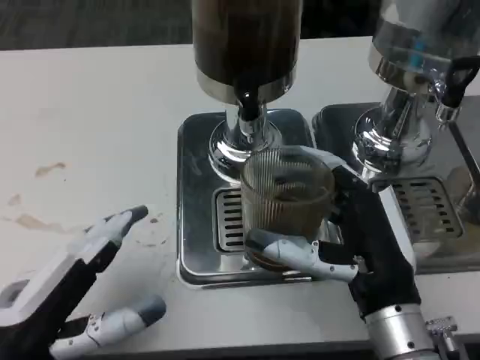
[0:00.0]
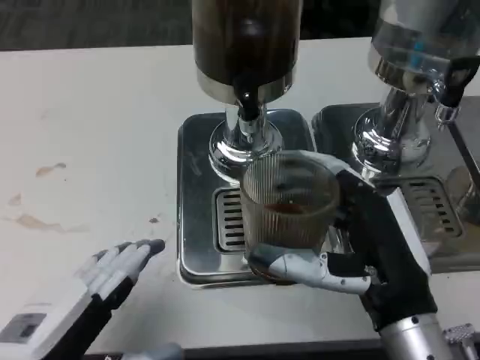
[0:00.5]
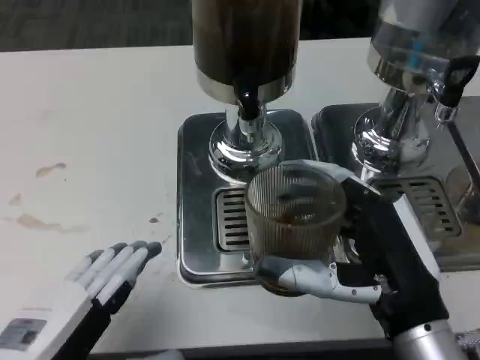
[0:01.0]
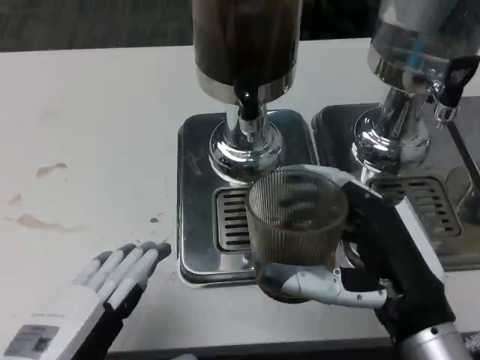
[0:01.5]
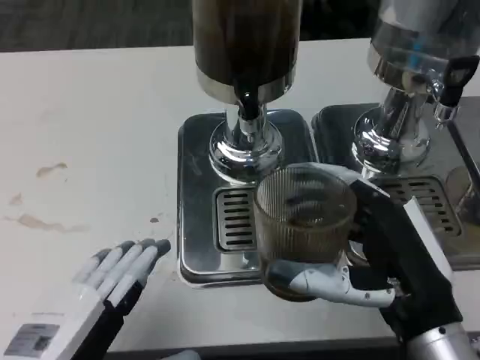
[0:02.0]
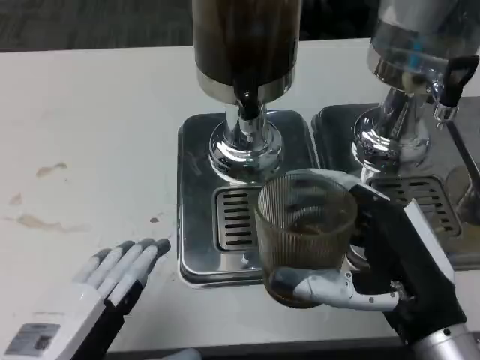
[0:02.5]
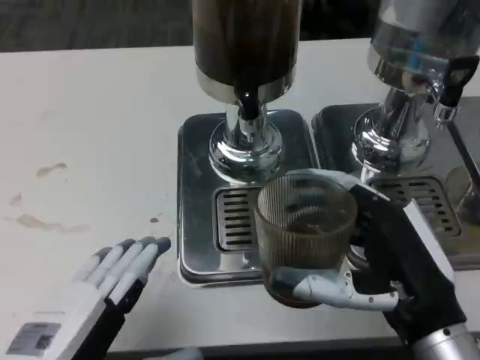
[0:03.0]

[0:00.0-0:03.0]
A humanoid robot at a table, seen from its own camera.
Task of the whole recording: Grasp the cup under the faucet to collect the drink, then remove the cup.
0:01.5 to 0:03.0: Both hands stay about where they are.

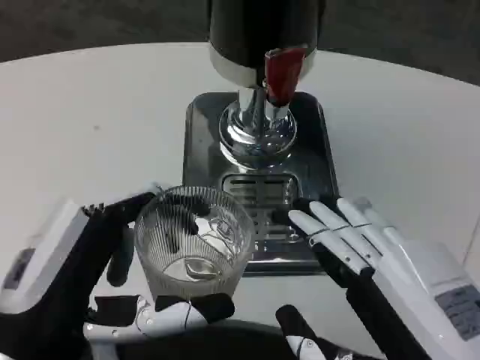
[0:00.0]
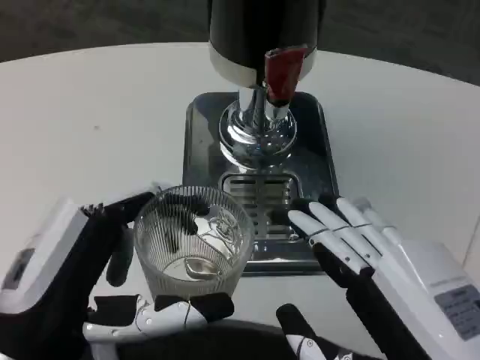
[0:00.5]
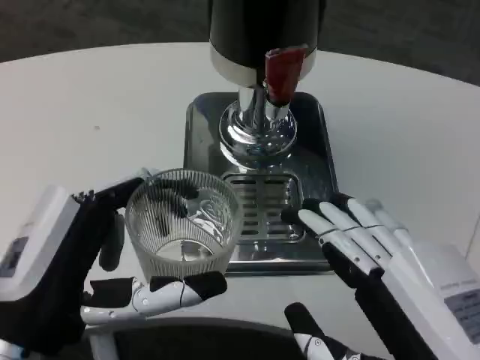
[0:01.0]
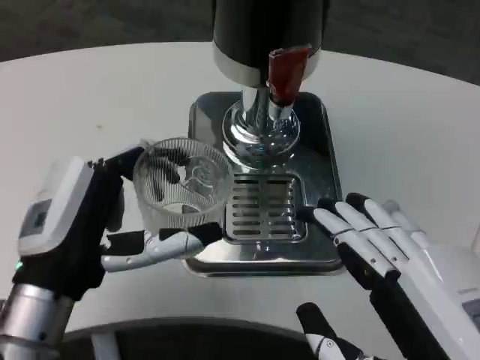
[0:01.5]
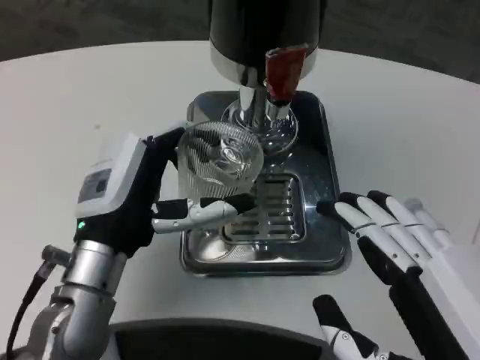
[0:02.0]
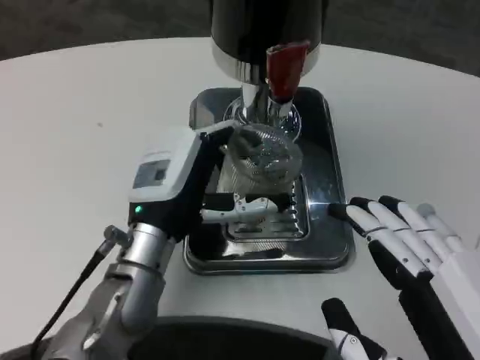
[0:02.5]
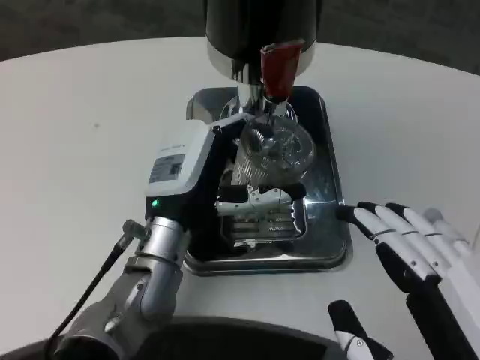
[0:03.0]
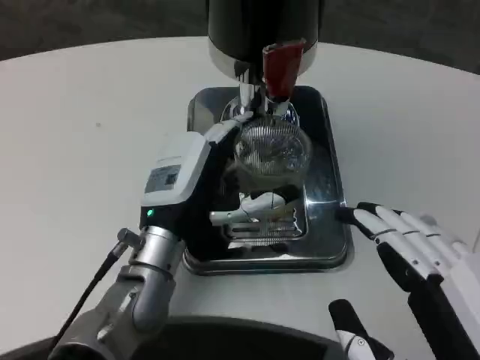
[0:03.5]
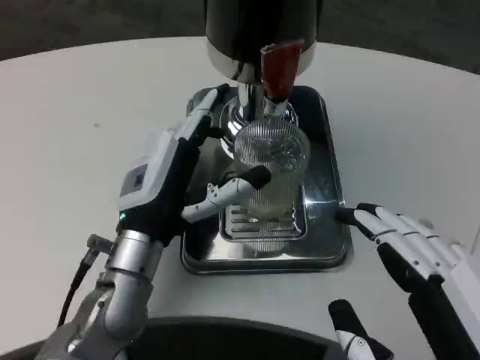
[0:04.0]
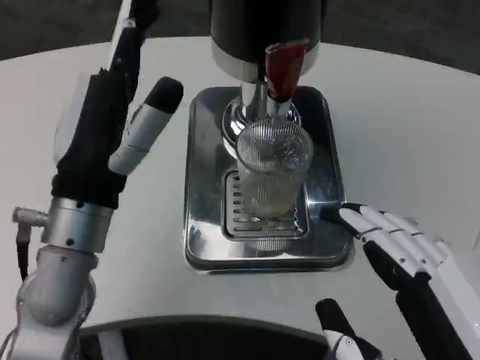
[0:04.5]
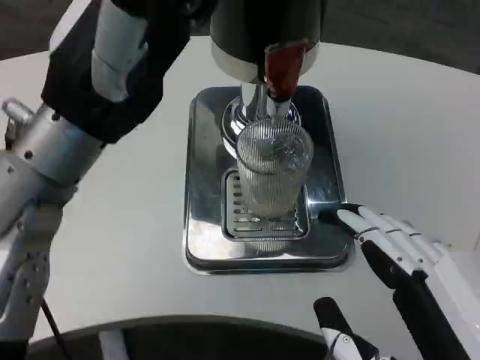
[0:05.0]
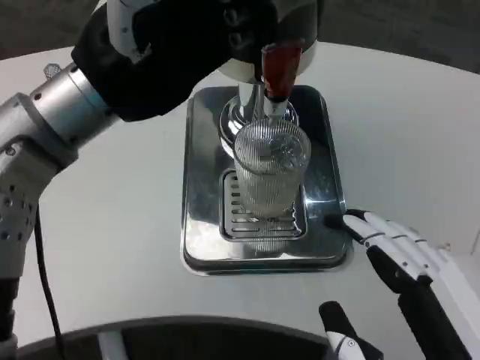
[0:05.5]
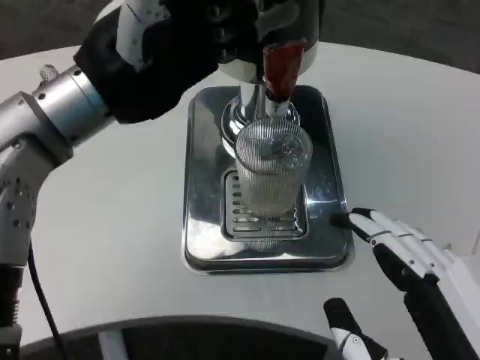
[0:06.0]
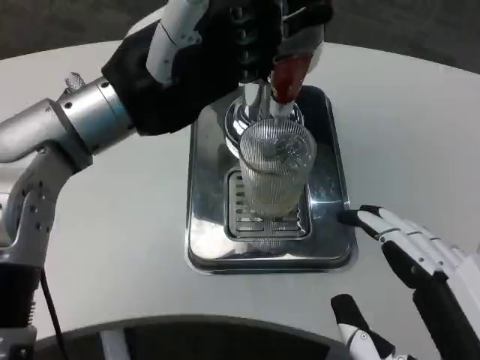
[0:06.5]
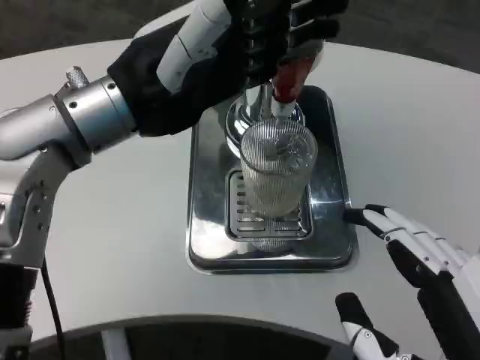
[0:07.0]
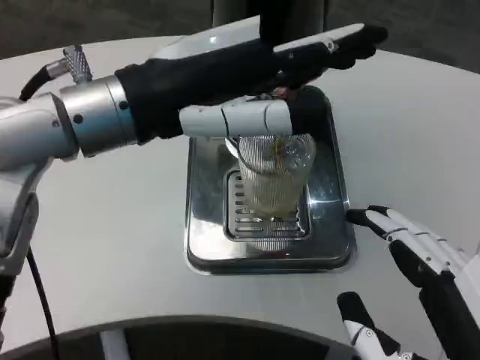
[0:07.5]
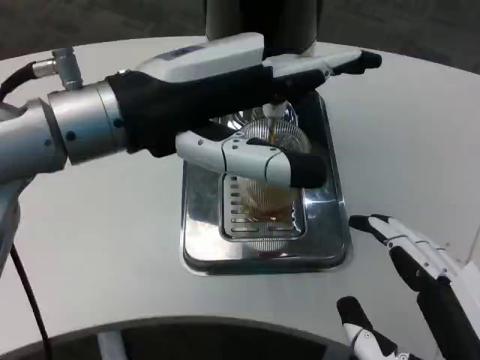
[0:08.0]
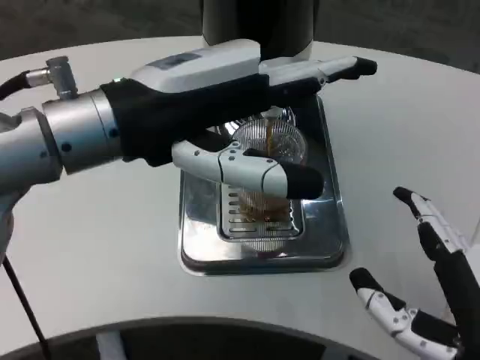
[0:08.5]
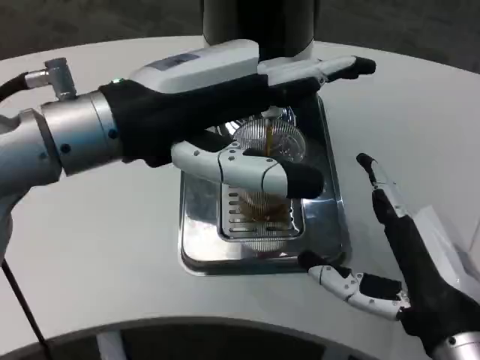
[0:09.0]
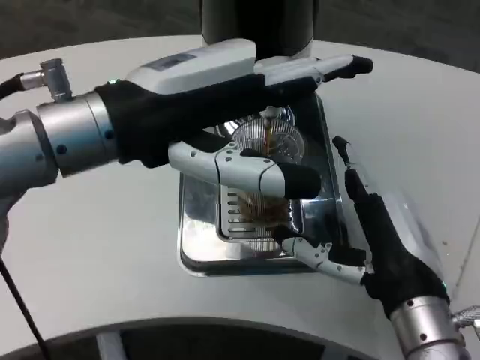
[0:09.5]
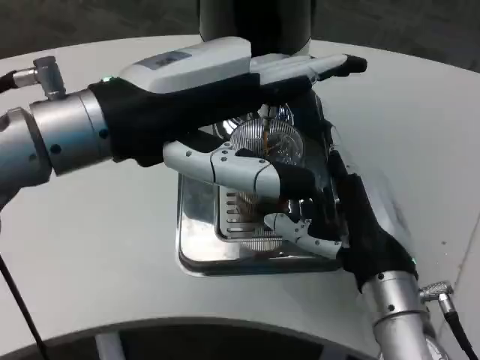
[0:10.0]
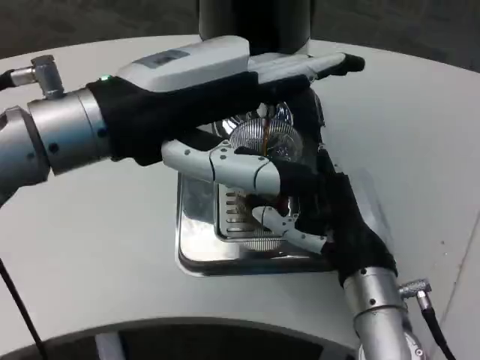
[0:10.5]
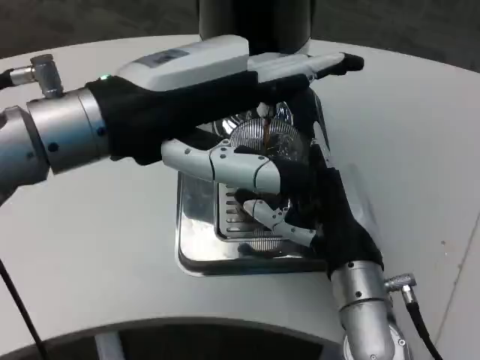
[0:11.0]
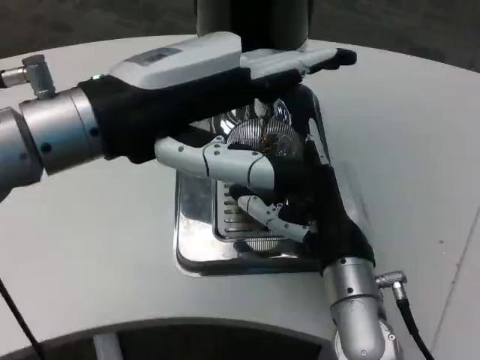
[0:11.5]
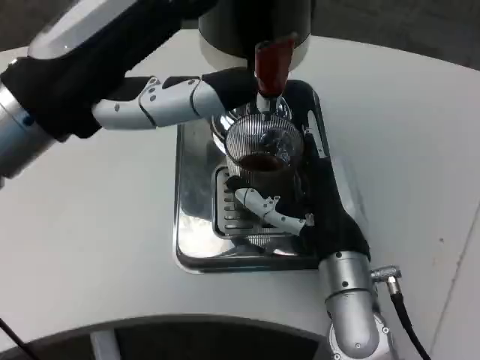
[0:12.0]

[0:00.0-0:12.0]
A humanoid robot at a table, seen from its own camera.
Task of the whole recording: Grasp the cup under the faucet to collect the drink, then remove the cup.
0:00.0 to 0:02.0: The left hand is displaced forward by some 15 cm.
0:04.0 to 0:06.0: The left hand is displaced upward by approximately 20 cm.
0:08.0 to 0:10.0: The right hand travels forward by approximately 15 cm.
0:10.0 to 0:12.0: The right hand moves approximately 5 cm.

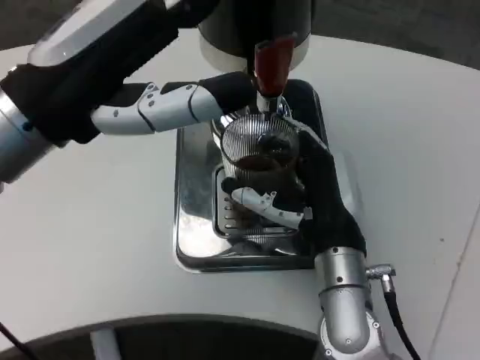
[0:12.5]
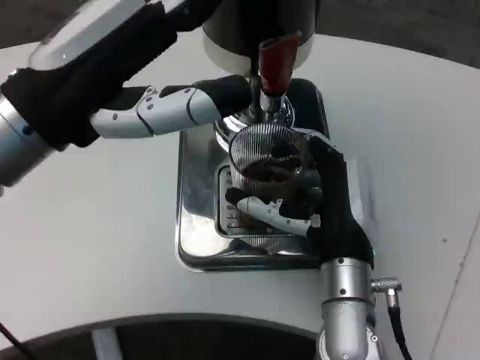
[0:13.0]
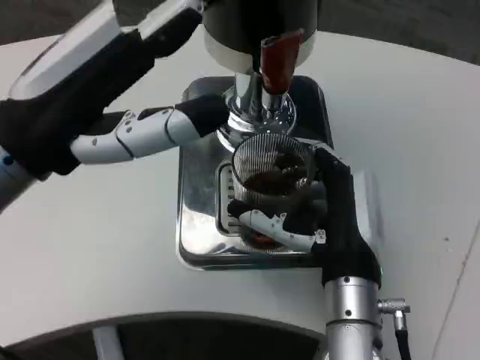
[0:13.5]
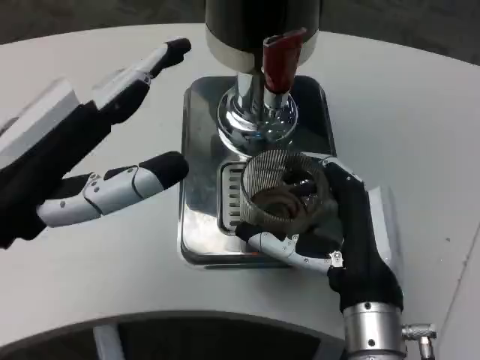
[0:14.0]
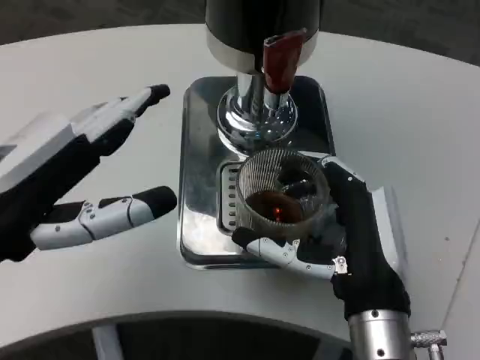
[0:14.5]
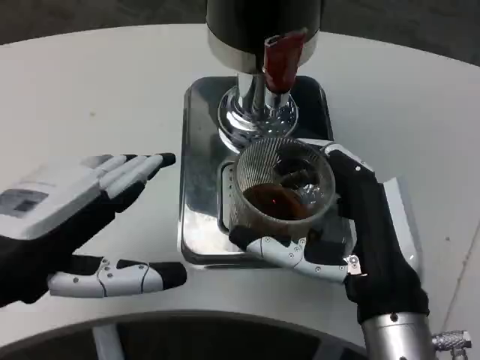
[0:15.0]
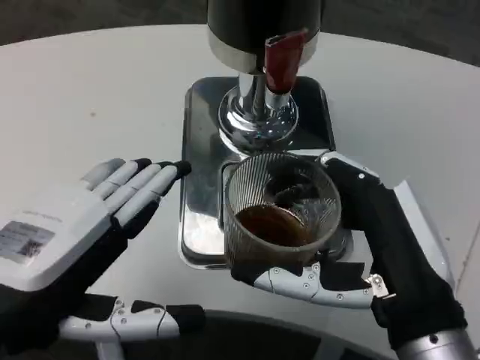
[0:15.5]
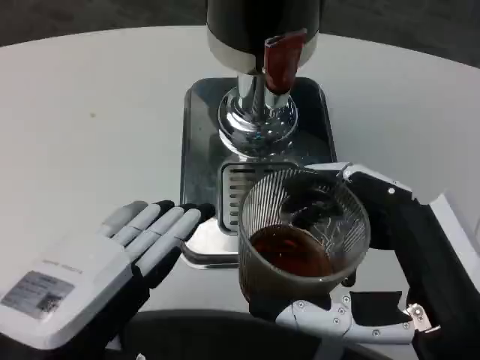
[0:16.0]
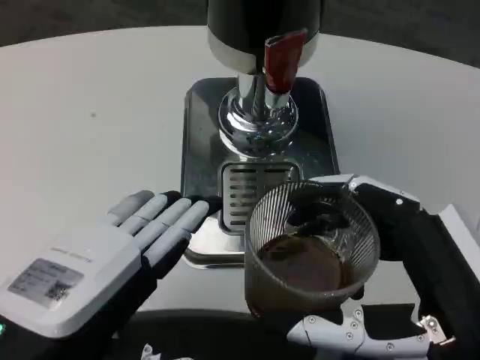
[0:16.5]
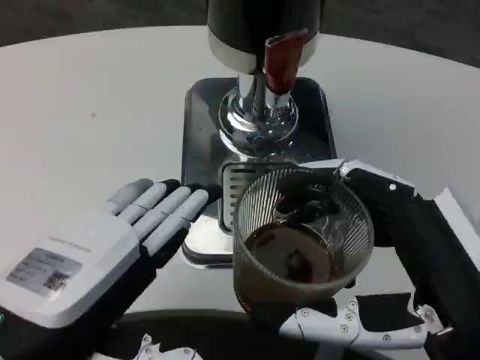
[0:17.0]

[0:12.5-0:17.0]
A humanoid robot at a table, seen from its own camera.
Task of the whole recording: Grasp the cup under the faucet to collect the drink, then remove the cup.
0:12.5 to 0:14.5: The right hand heads backward, covering some 5 cm. The left hand travels downward and backward by about 10 cm.
0:14.5 to 0:17.0: The right hand heads backward, upward and to the right, covering about 15 cm. The left hand travels backward by some 5 cm.

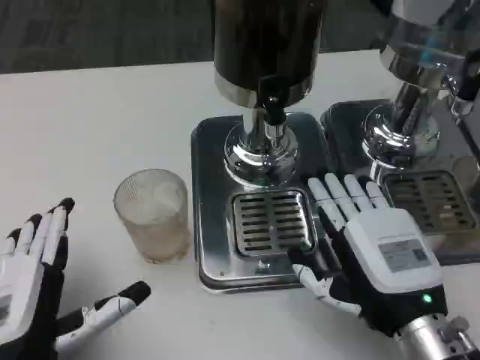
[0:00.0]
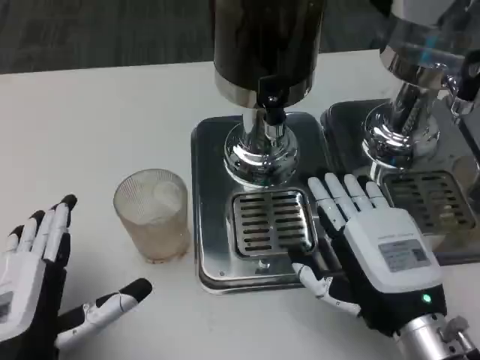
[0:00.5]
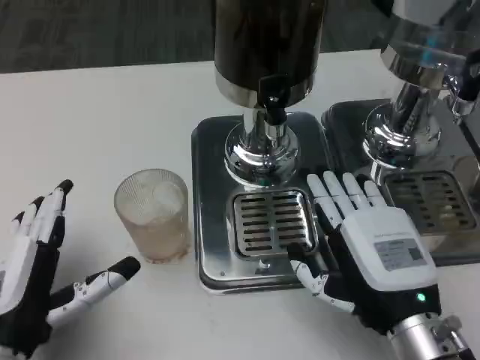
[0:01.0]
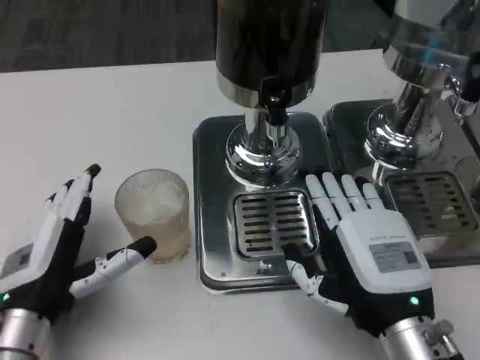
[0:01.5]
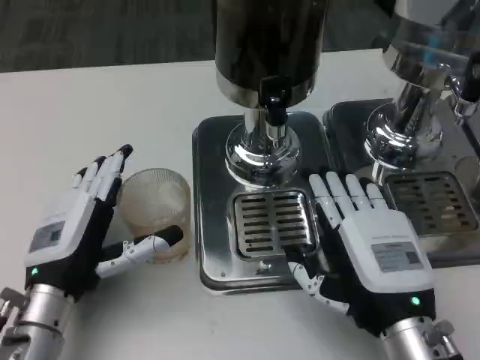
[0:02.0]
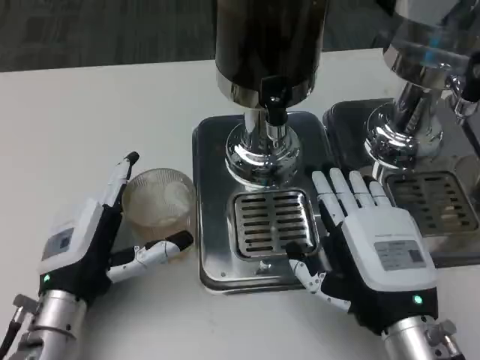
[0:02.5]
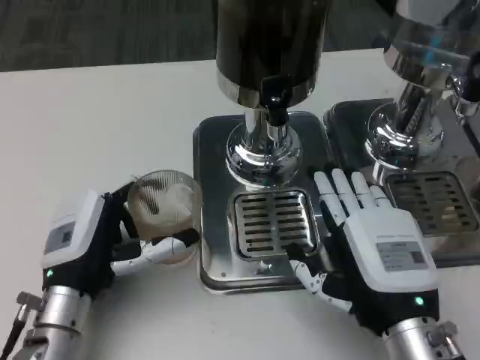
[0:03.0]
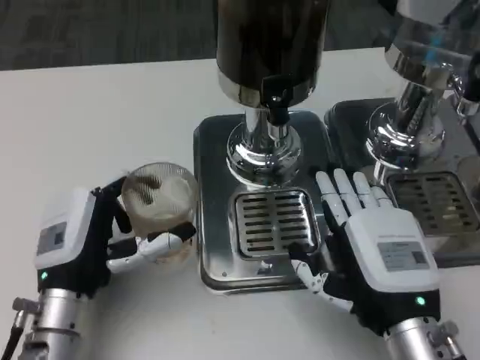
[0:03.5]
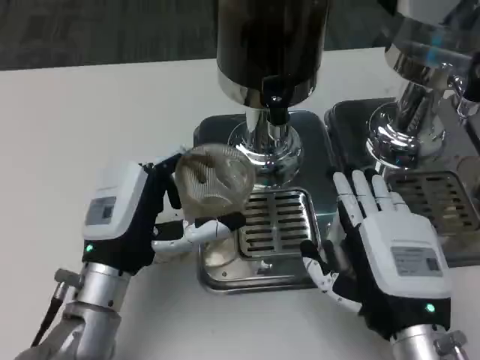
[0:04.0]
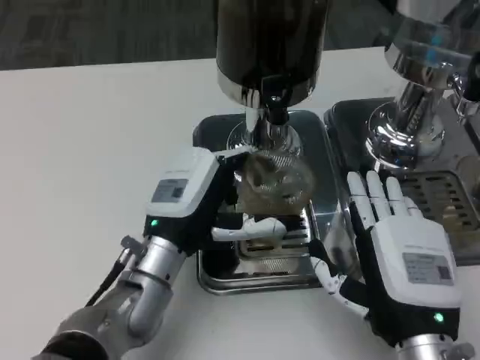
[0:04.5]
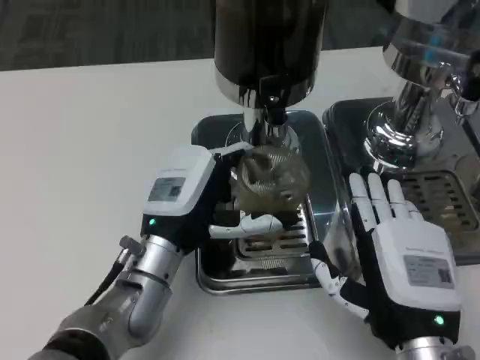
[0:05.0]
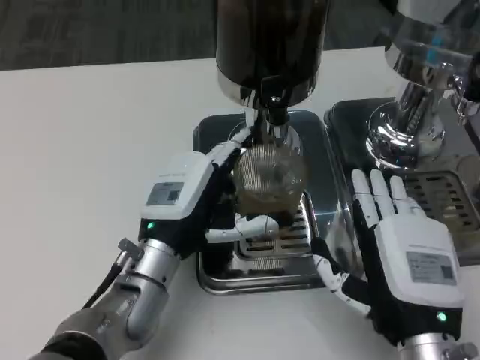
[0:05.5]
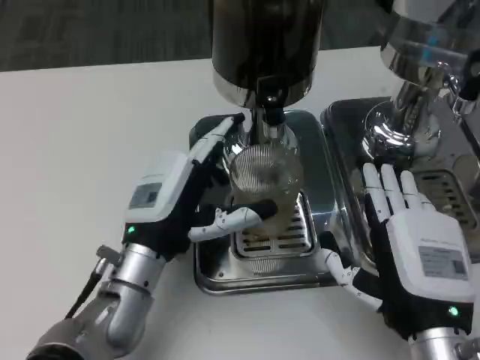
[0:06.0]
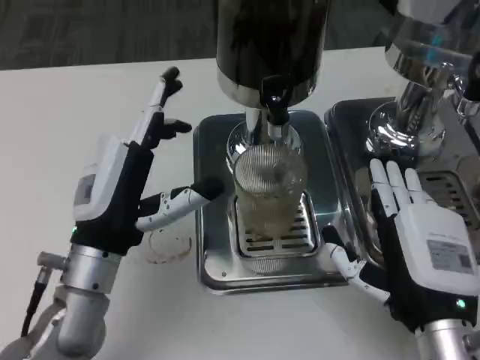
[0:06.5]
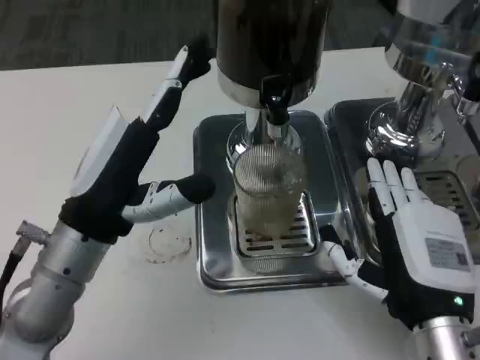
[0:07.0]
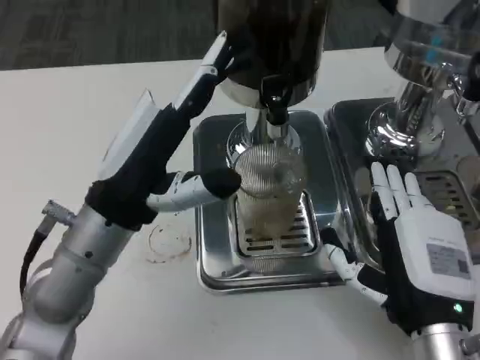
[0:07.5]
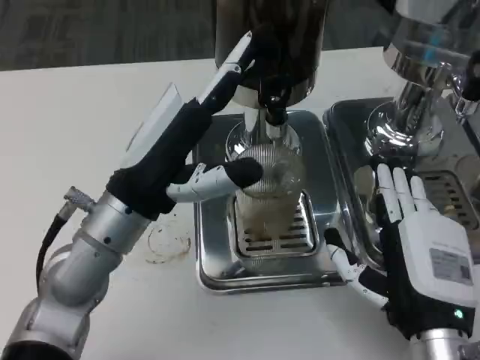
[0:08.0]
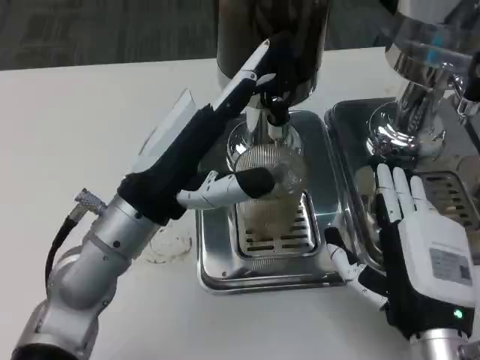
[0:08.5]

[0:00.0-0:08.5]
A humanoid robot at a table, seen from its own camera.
Task of the whole recording: Grasp the cup under the faucet to collect the drink, then remove the cup.
0:00.0 to 0:02.0: The left hand is displaced forward by approximately 10 cm.
0:02.0 to 0:04.0: The left hand goes approximately 5 cm to the right.
0:06.5 to 0:08.5: The left hand is displaced upward by about 5 cm.
